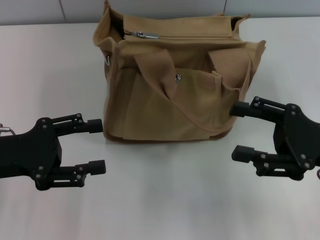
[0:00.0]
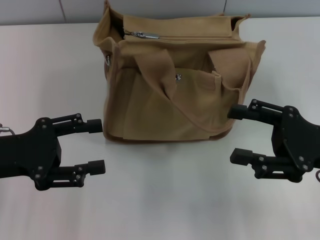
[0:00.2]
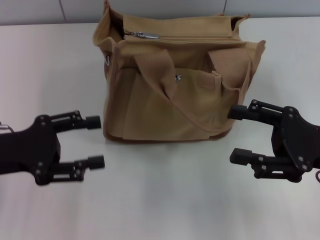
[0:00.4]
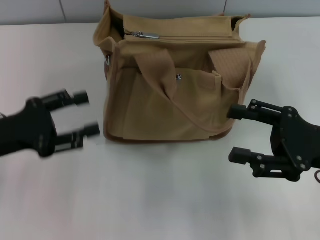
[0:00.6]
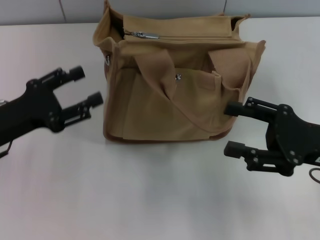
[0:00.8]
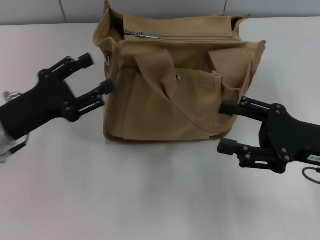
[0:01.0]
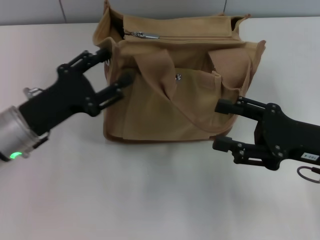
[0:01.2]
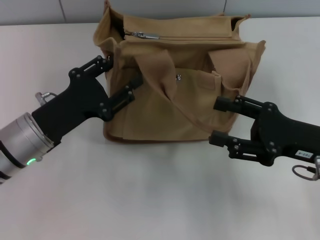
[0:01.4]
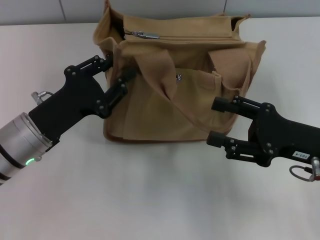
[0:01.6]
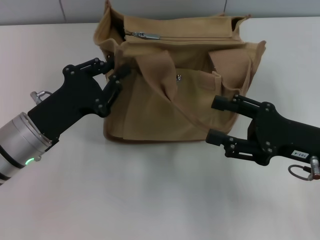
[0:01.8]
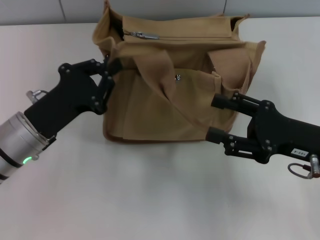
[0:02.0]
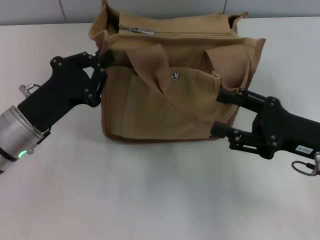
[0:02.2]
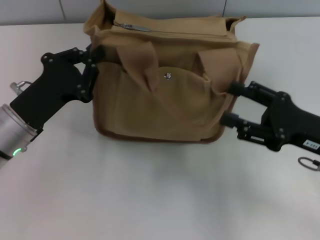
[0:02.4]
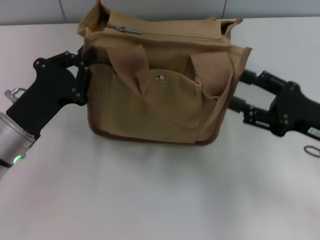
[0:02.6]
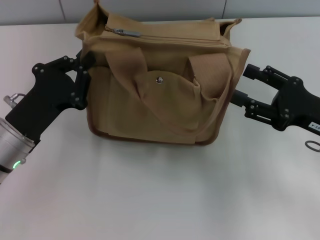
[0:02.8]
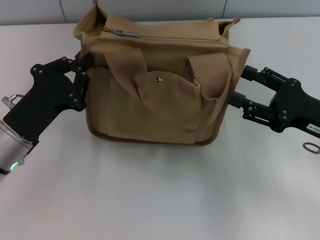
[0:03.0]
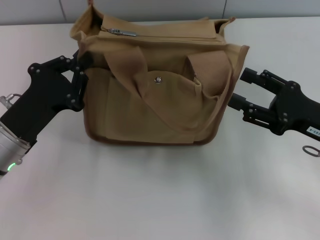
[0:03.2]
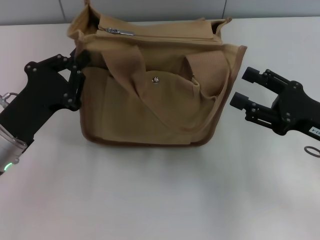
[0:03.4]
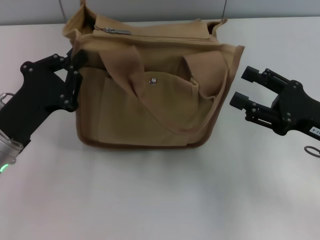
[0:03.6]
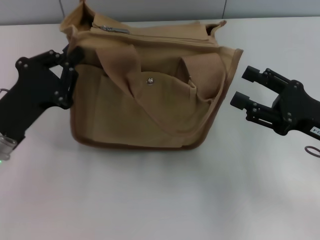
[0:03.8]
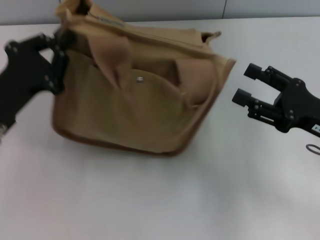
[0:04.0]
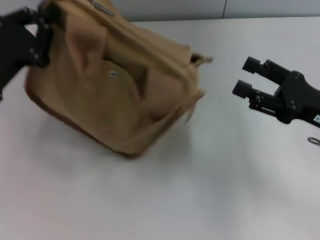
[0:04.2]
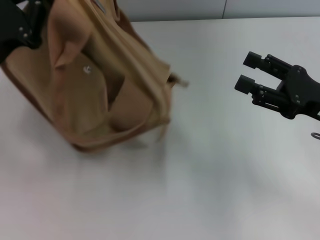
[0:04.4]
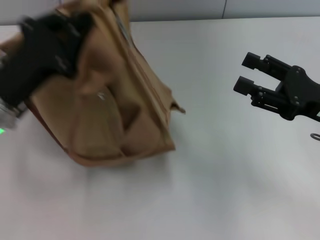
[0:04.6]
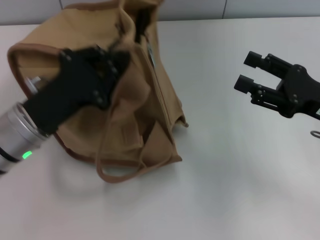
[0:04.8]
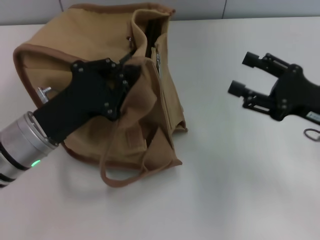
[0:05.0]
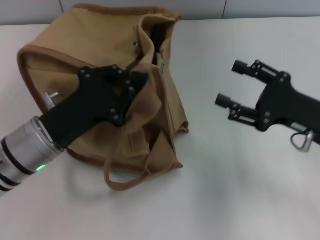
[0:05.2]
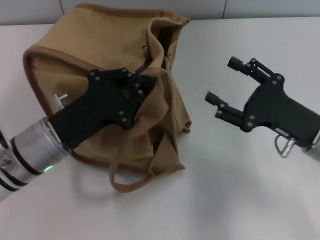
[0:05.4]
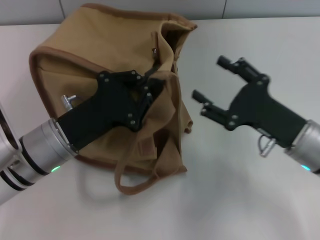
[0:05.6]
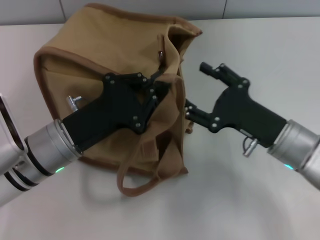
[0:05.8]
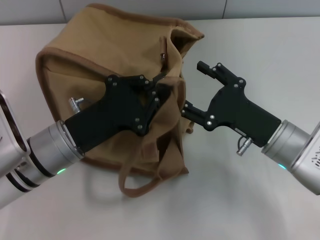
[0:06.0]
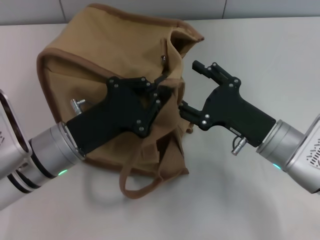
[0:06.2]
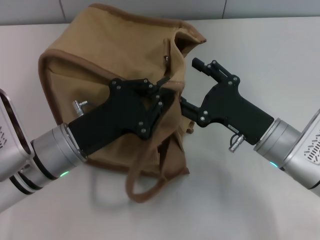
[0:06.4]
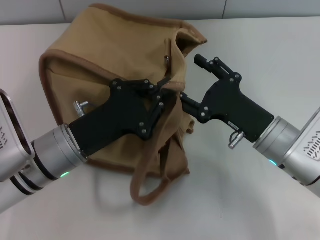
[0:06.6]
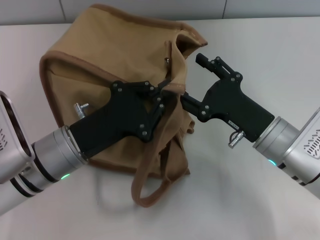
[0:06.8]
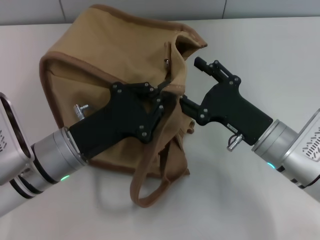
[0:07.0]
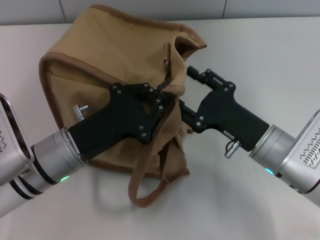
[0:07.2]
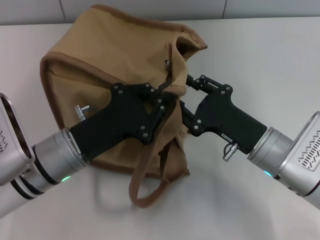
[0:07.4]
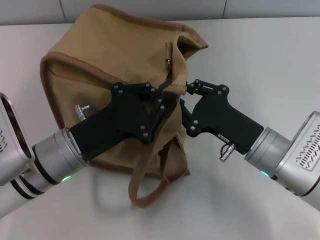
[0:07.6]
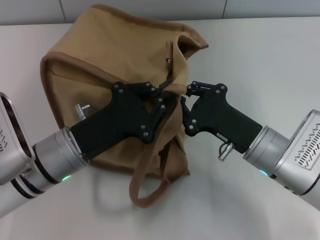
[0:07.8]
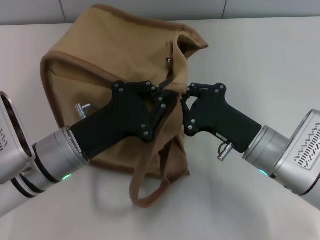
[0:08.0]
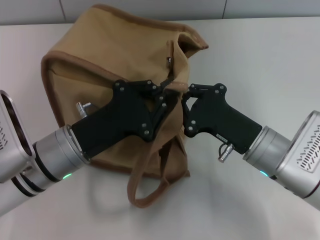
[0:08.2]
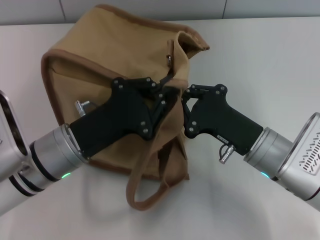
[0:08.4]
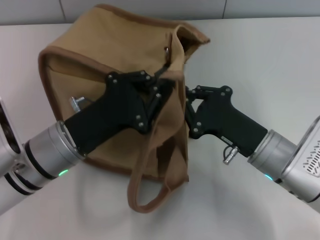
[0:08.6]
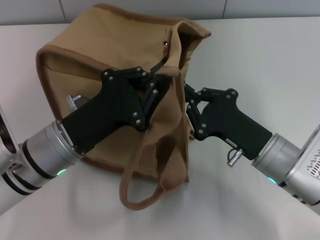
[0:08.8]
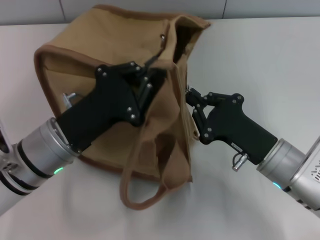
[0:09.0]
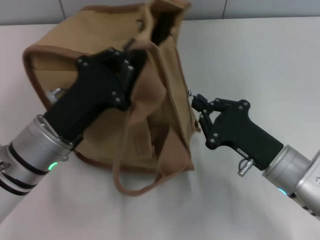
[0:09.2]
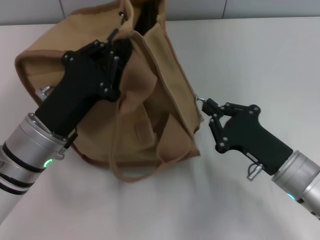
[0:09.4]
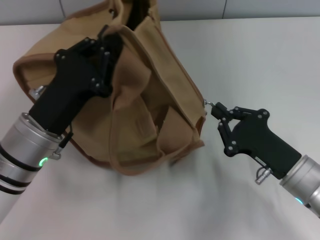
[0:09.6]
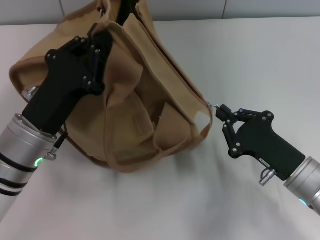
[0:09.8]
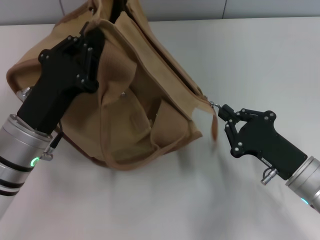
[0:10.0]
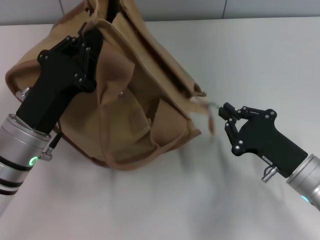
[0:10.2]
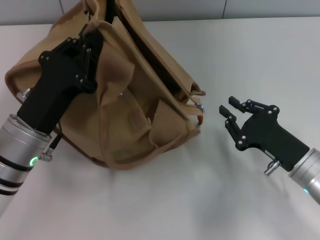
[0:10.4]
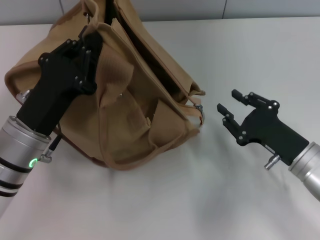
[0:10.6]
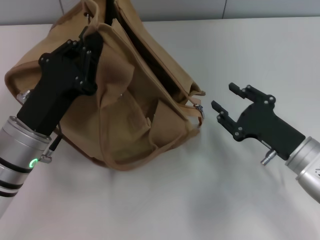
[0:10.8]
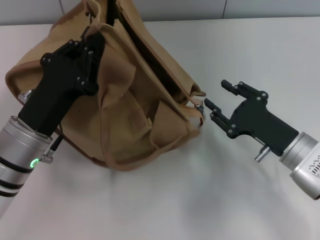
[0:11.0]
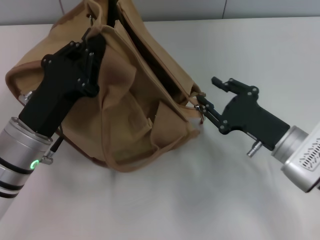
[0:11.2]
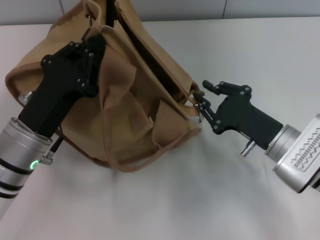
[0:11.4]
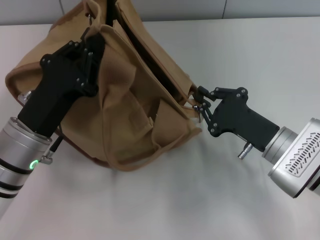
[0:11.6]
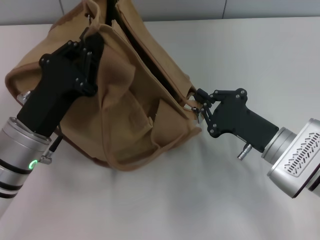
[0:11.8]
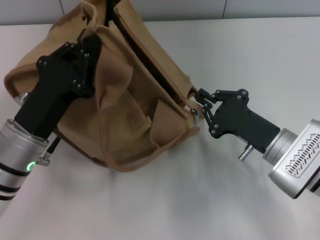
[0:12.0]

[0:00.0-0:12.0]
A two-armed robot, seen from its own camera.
Step, 0:00.0 to 0:10.2: Pull open the zipper with your right hand.
0:00.0 to 0:01.6: The left gripper is displaced to the right by roughly 5 cm.
0:01.6 to 0:03.0: The left gripper closes.
0:03.0 to 0:04.4: The left gripper moves upward, some 5 cm.
0:04.4 to 0:06.0: The left gripper moves to the right and downward, approximately 10 cm. The right gripper travels to the left and downward by about 10 cm.
0:06.0 to 0:07.6: The right gripper closes.
0:07.6 to 0:09.0: The right gripper closes.
0:09.0 to 0:10.4: The right gripper heads to the right, covering some 5 cm.
0:10.4 to 0:12.0: The right gripper opens, then closes again.

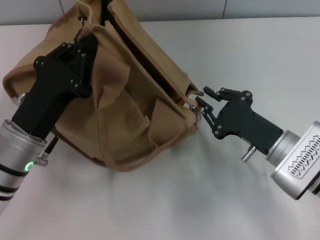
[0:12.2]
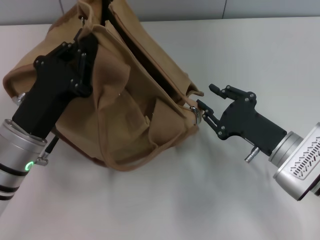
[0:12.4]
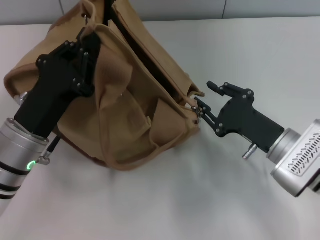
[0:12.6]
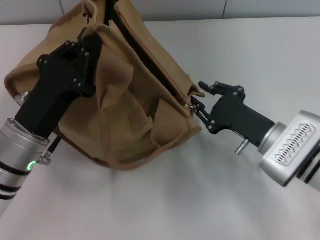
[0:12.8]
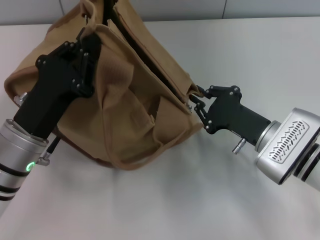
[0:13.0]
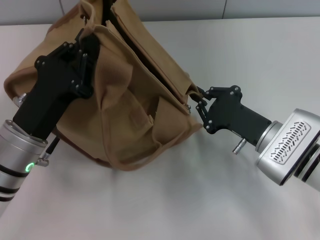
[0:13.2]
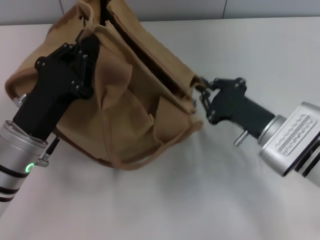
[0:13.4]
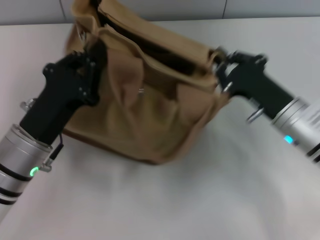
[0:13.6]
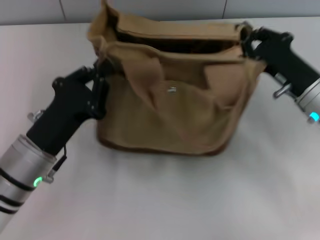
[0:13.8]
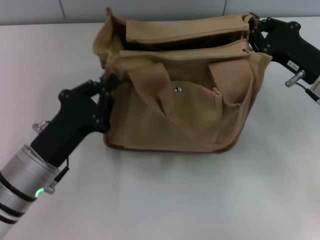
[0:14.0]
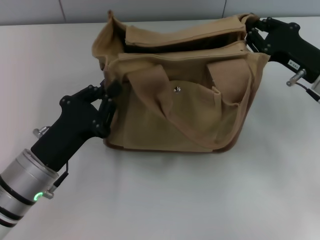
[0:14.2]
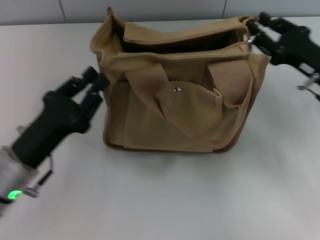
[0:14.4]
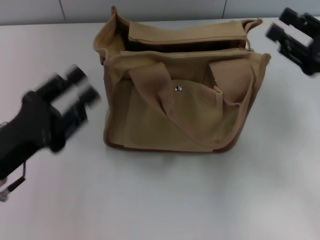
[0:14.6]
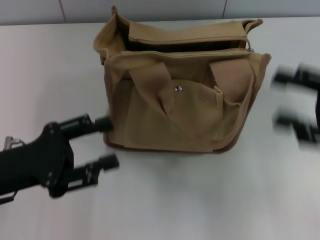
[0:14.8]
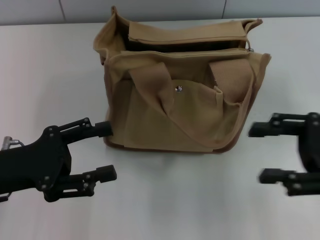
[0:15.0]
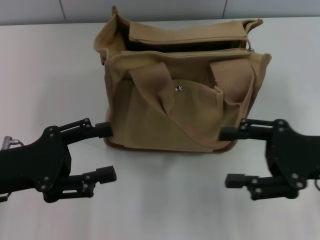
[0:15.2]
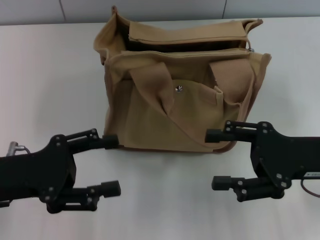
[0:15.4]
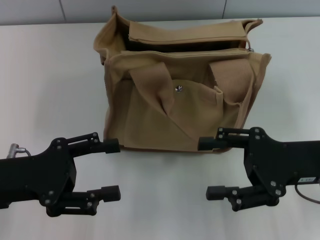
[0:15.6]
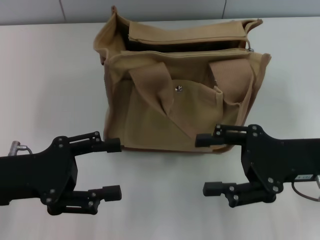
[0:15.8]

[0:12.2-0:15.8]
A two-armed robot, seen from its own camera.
Step, 0:12.2 to 0:14.2: Grab the bag with your left hand.
0:12.2 to 0:14.0: The right gripper heads forward, upward and to the right, covering about 10 cm, and opens, then closes once more.
0:14.0 to 0:15.8: The left gripper is displaced to the left and upward by roughly 10 cm, and opens up; the right gripper is displaced backward by approximately 10 cm, and opens up.
